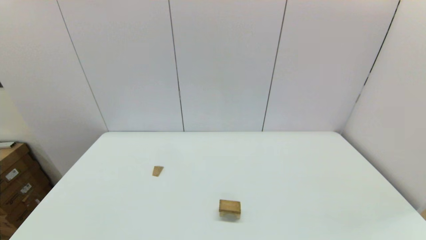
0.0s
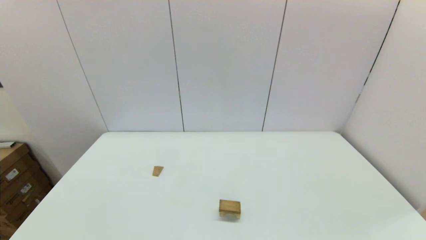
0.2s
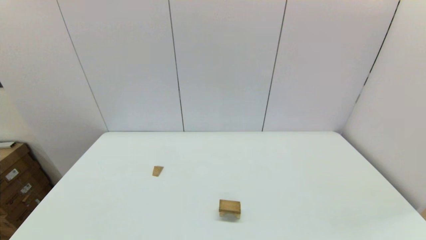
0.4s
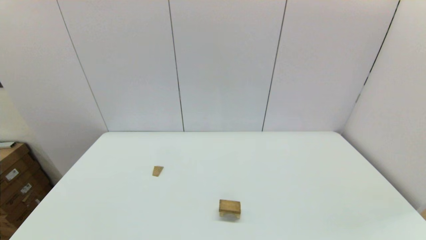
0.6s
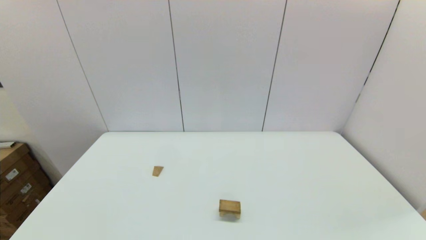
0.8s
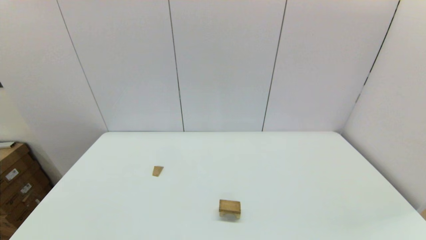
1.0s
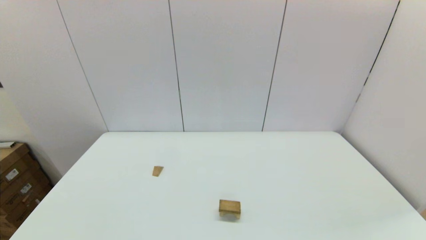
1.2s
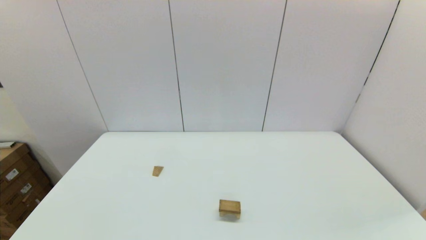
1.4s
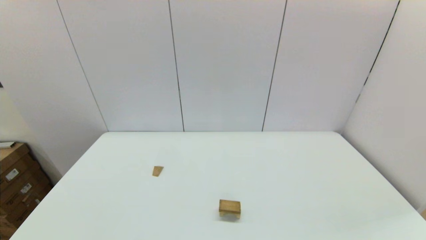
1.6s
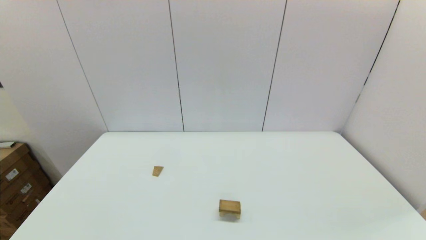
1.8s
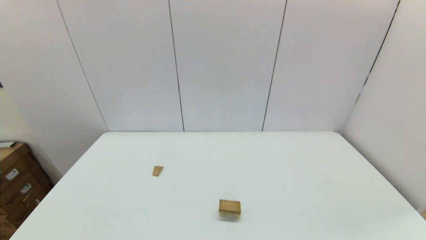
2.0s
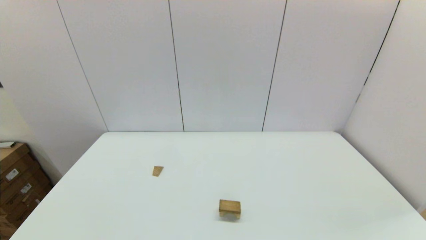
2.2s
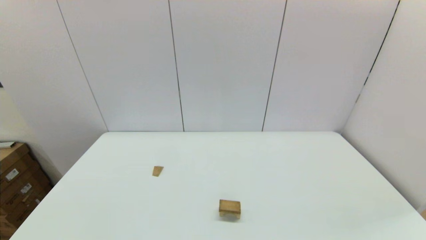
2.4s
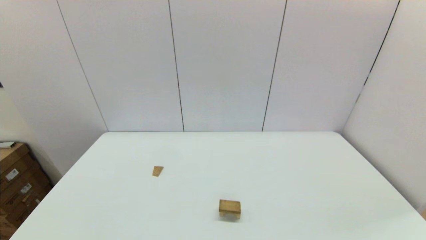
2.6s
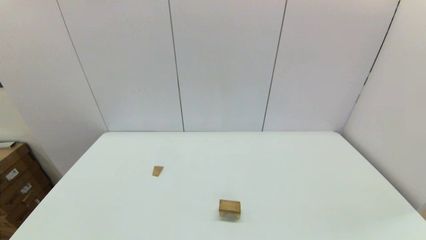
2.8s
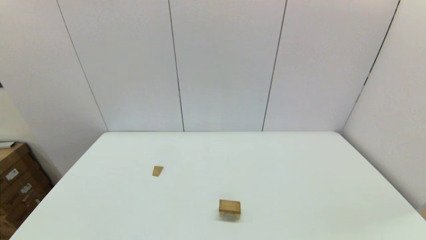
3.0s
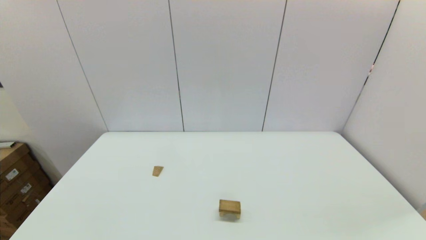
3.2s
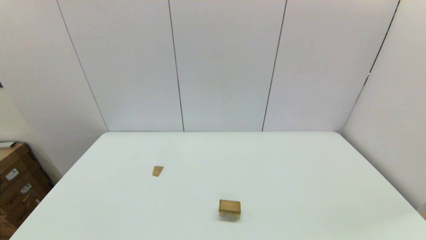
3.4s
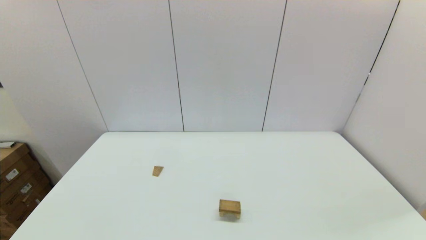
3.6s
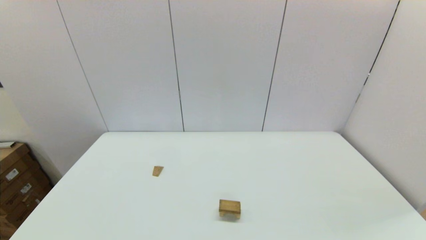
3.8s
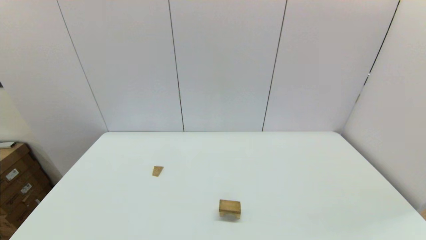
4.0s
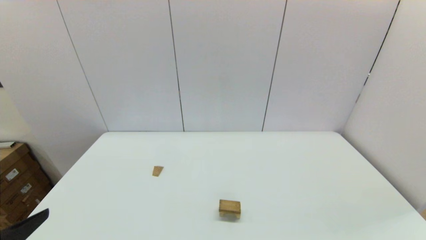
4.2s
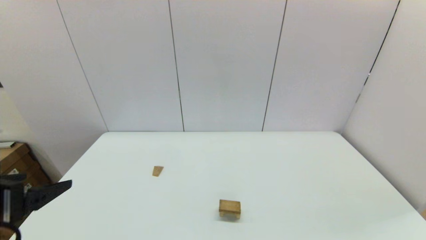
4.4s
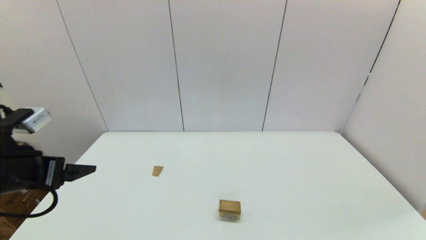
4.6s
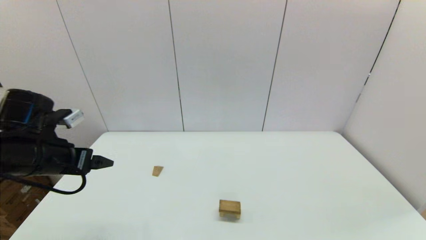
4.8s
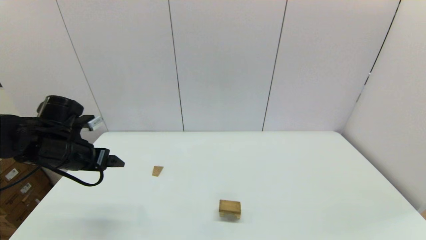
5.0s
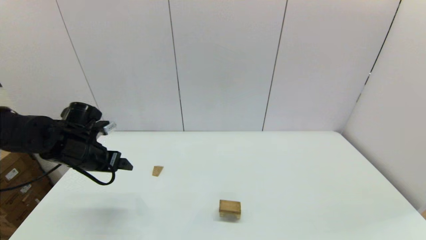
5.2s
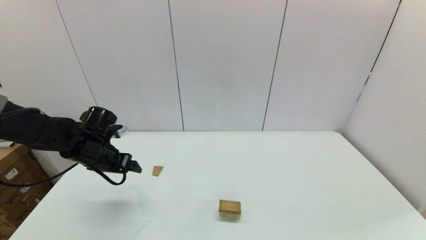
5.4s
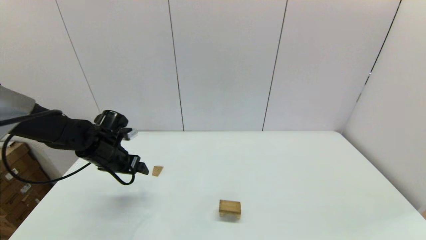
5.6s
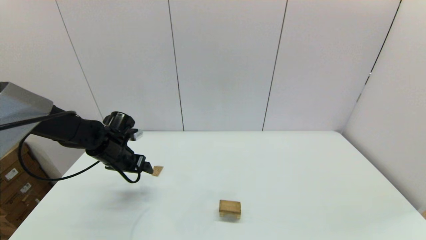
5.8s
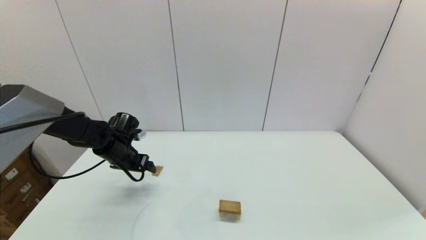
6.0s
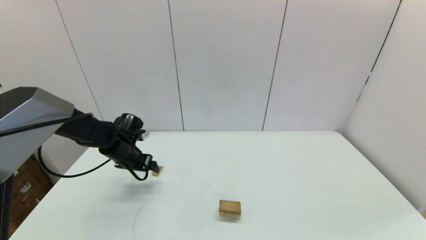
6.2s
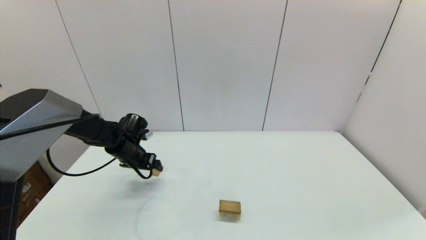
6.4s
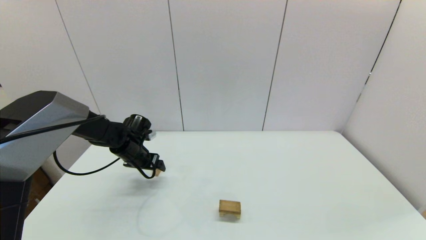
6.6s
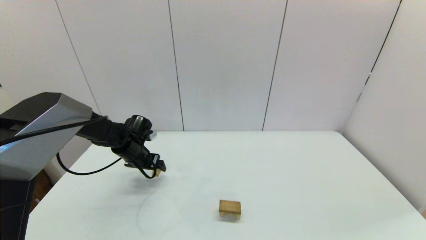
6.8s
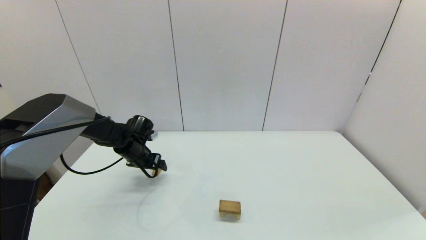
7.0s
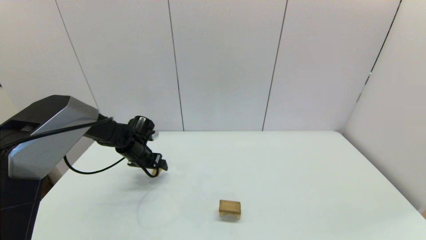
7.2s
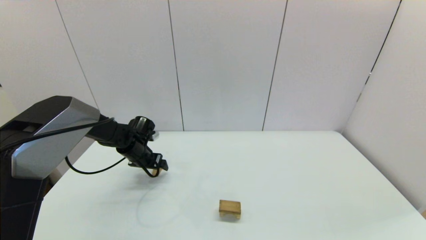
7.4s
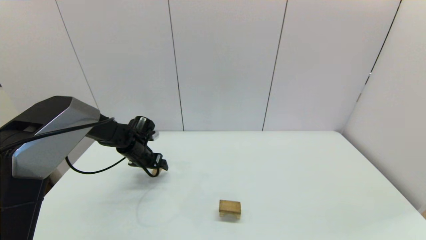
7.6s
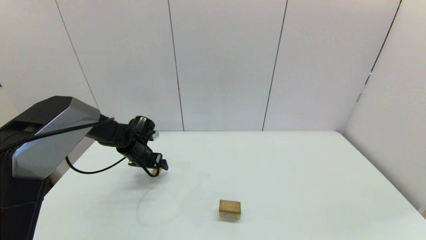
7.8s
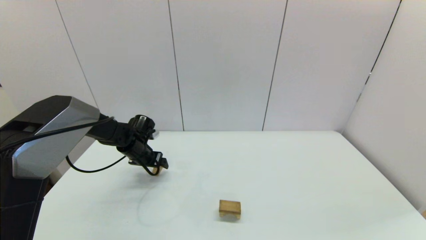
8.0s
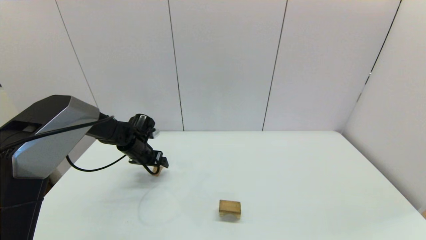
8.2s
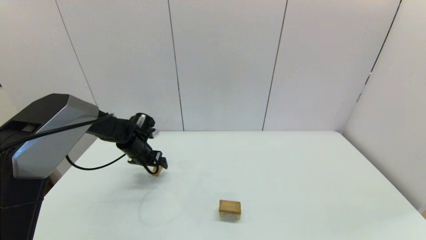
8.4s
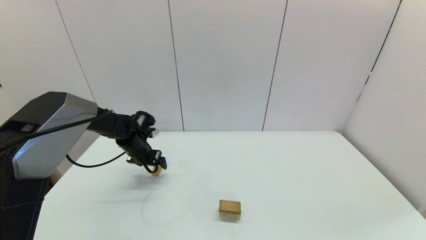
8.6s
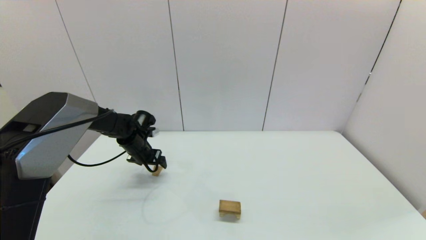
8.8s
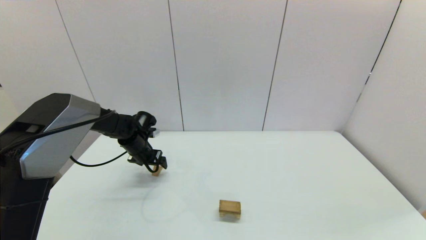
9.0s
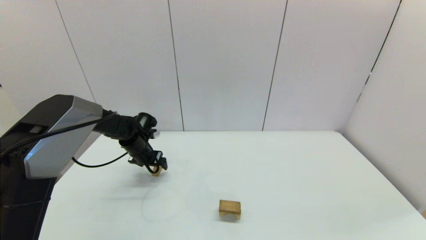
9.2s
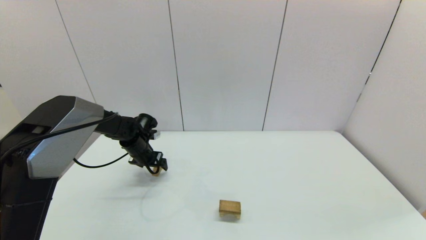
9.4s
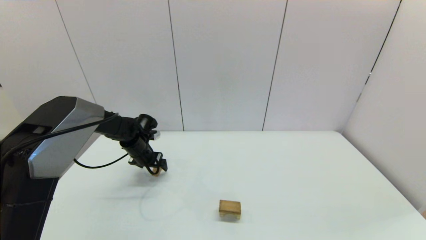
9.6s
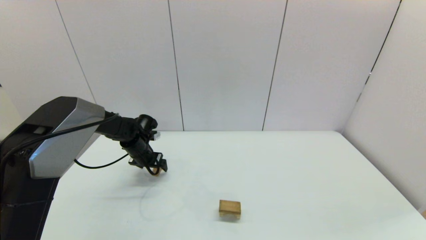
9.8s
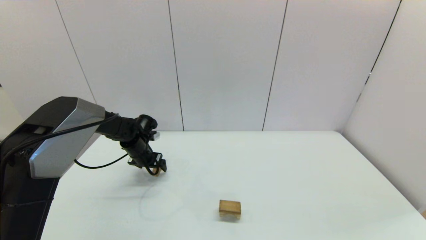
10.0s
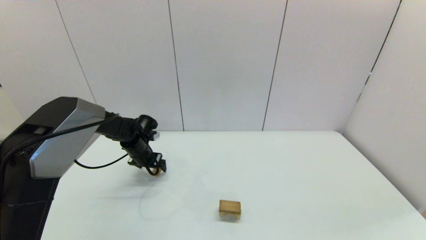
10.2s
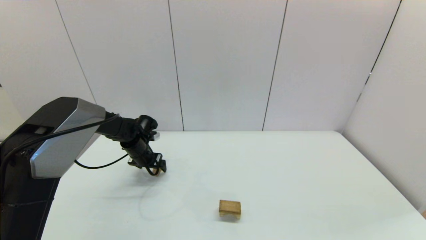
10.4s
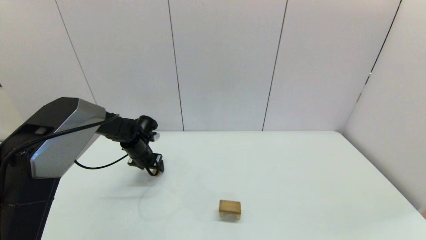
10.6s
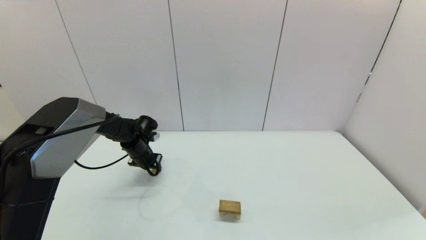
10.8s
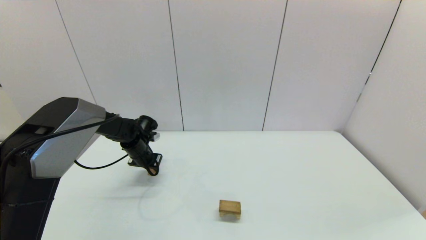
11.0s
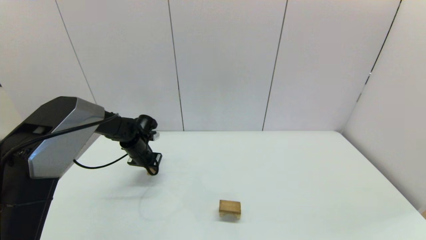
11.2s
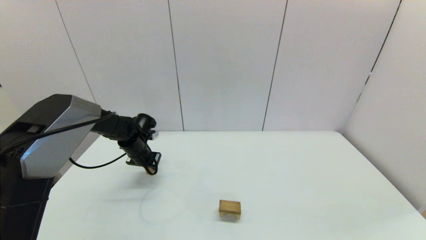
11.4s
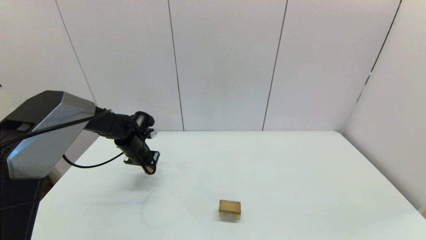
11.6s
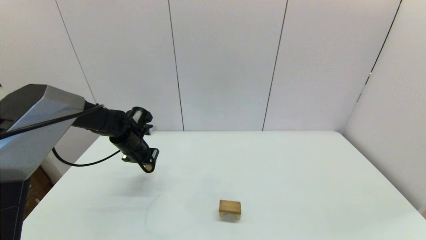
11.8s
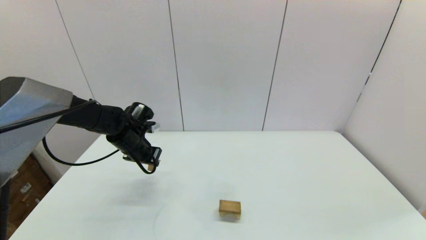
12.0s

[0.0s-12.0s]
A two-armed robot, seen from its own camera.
Task of the whole recording: place the arched building blocks in the center of the table, set up the rectangular building blocks, and then set up the triangular building blocks.
Step, 0.0s to 11.0s: Grasp the triangle-shaped block with the left gripper.
1.6s to 3.0s: Both grippers stay about where they are.
3.0s to 4.4s: The left gripper travels upward and forward by roughly 20 cm.
4.4s to 6.0s: The left gripper shifts some 30 cm forward and downward.
6.0s to 7.6s: The left gripper shifts by some 5 cm.
7.6s to 9.0s: There are only small adjustments of the grippers.
9.0s to 10.4s: Both grippers stay put.
10.4s to 12.0s: The left gripper is displaced upward and backward by approximately 10 cm, and closes its fingers.

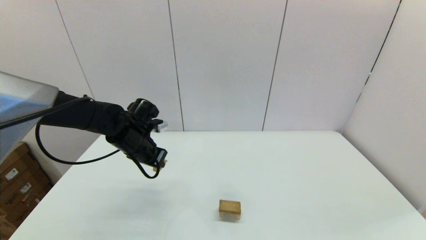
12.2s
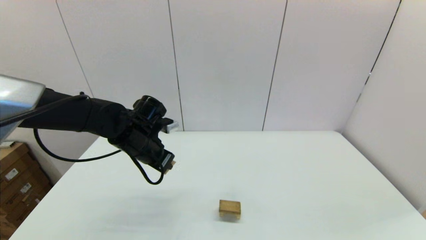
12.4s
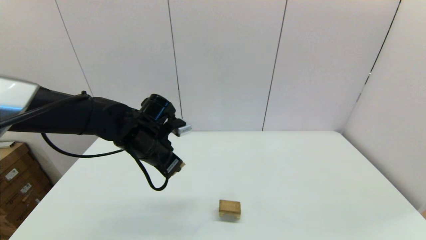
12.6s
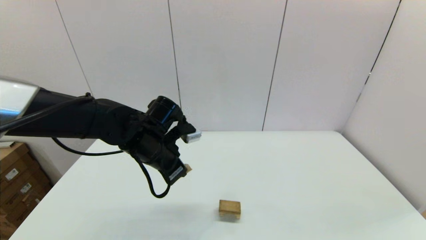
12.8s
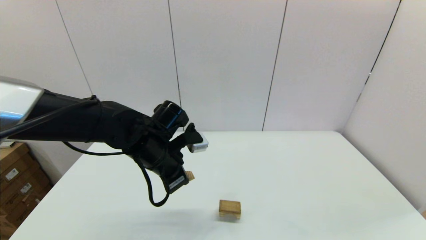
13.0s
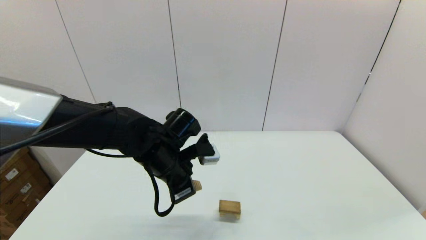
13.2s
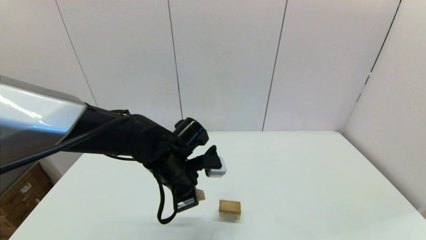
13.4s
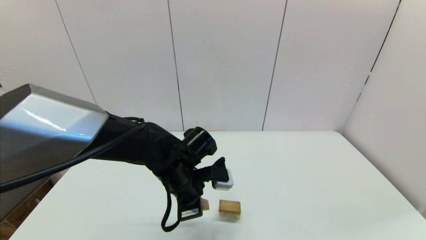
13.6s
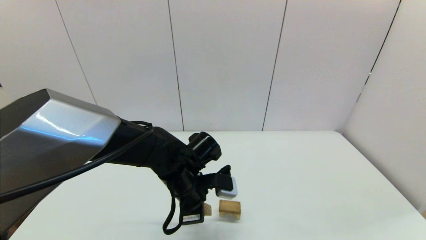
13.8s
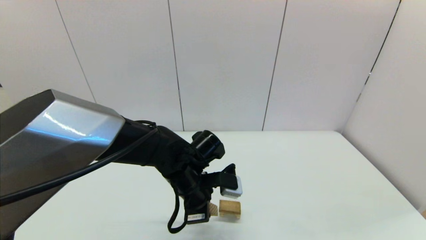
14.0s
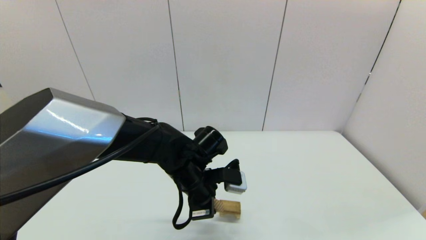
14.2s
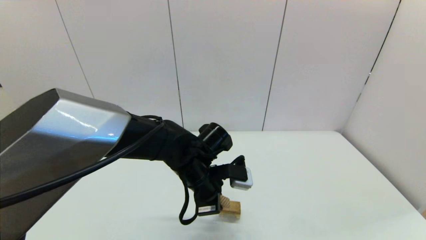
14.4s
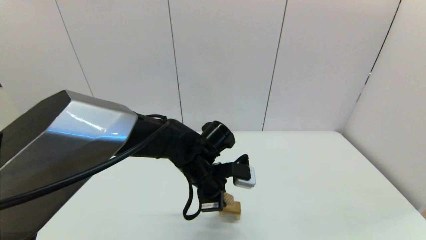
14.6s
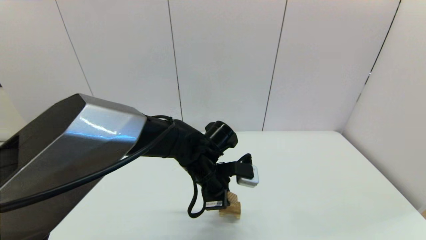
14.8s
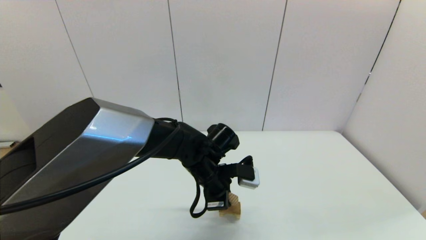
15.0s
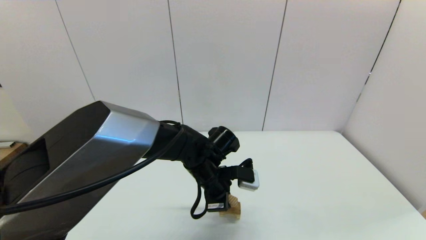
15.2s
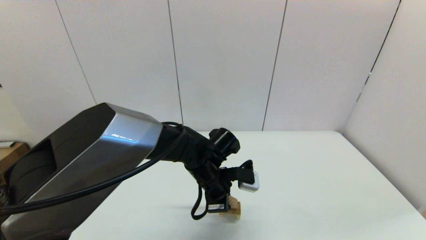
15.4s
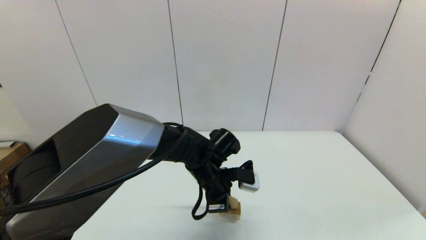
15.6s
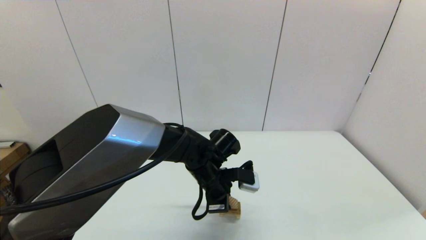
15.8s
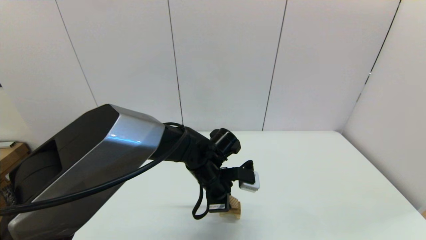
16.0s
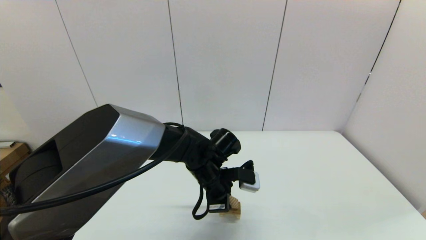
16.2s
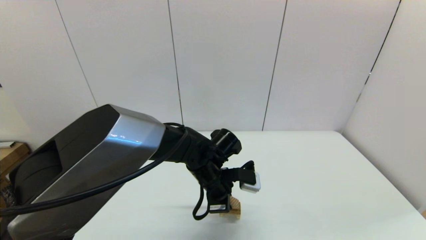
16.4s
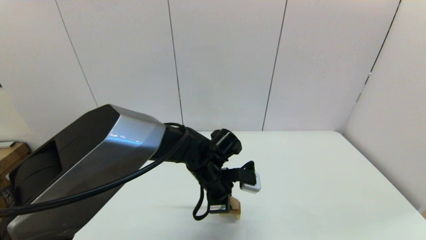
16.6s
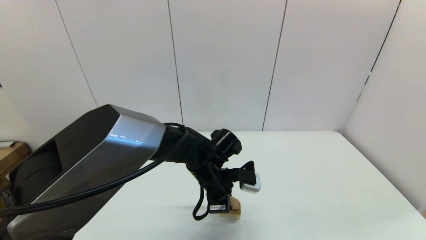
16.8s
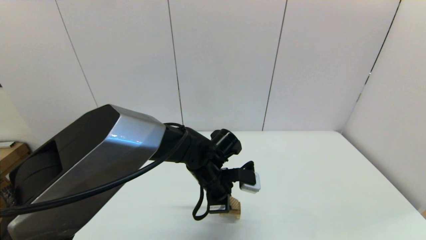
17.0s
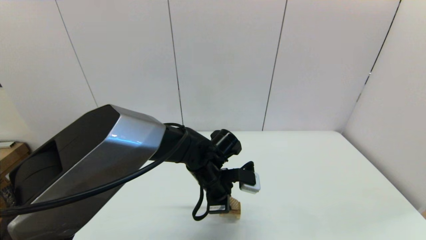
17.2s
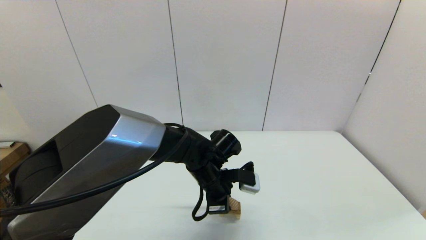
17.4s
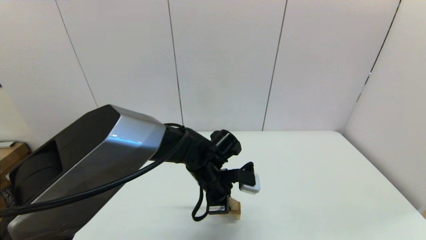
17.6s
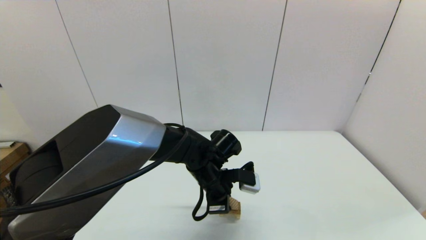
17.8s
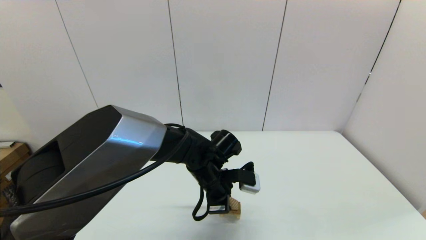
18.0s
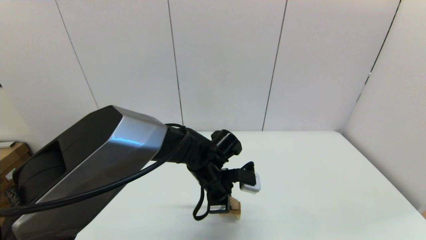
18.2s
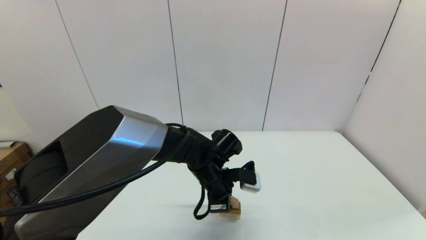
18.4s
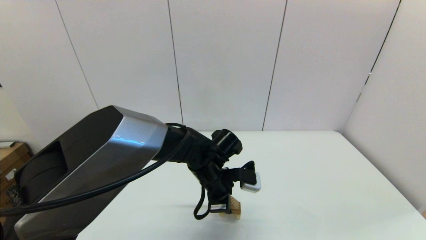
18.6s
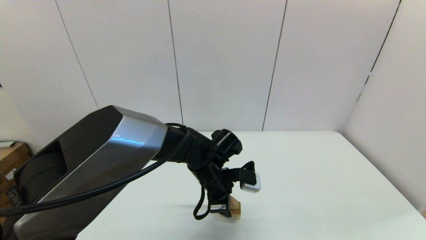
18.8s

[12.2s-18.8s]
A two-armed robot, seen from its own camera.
Task of the whole recording: place the arched building blocks in the center of the table, set up the rectangular building blocks, and then set up the triangular building blocks.
12.2s to 13.8s: The left gripper heads to the right and backward, covering approximately 15 cm.
13.8s to 15.4s: The left gripper ends up some 5 cm from where it was.
15.4s to 17.2s: The two grippers keep their place.
17.2s to 18.8s: The left gripper opens up.
